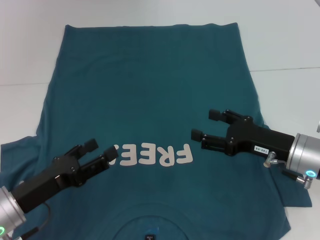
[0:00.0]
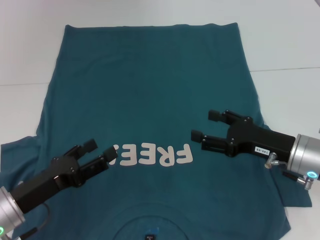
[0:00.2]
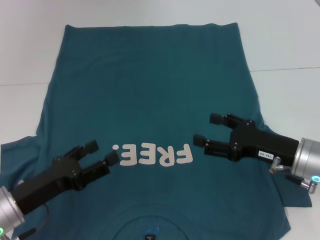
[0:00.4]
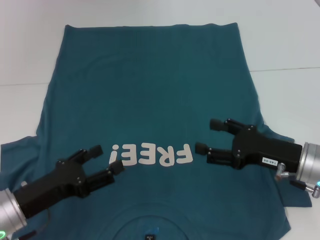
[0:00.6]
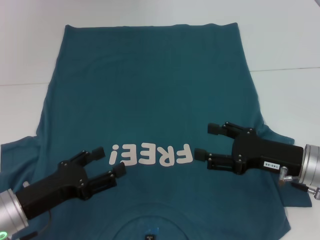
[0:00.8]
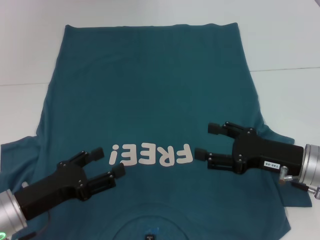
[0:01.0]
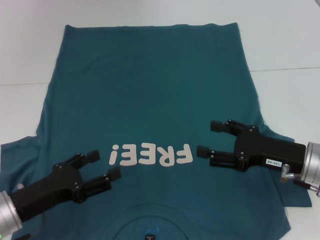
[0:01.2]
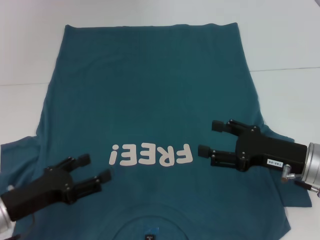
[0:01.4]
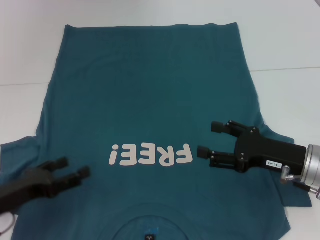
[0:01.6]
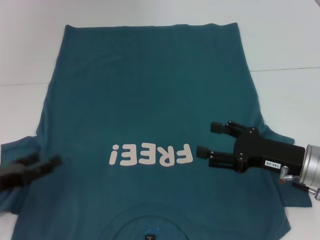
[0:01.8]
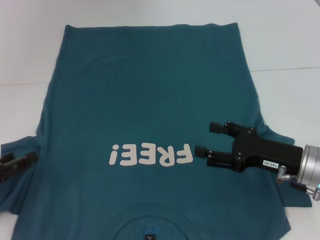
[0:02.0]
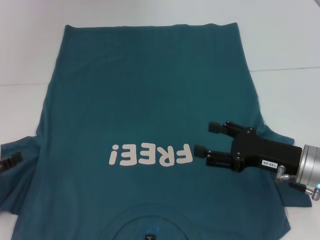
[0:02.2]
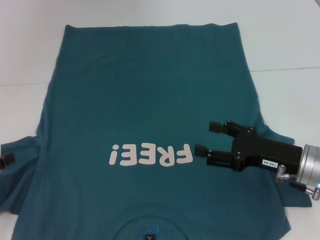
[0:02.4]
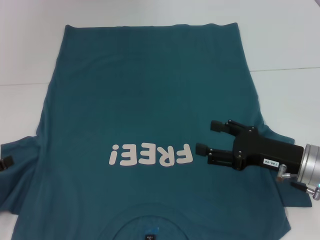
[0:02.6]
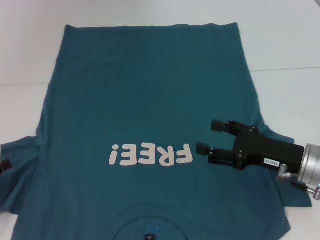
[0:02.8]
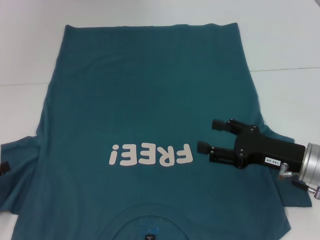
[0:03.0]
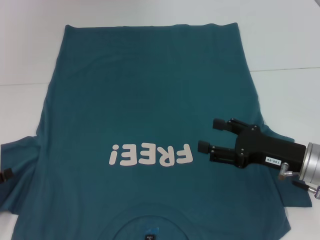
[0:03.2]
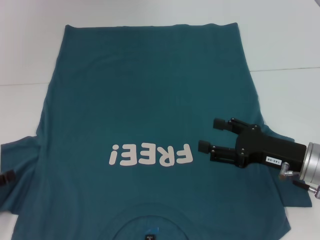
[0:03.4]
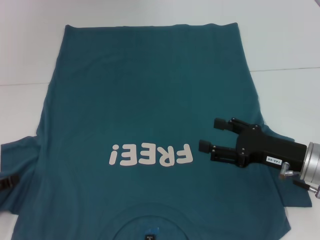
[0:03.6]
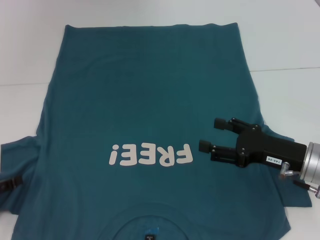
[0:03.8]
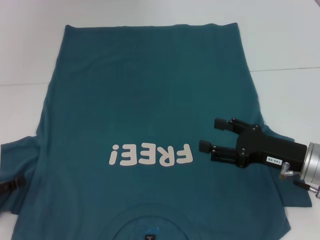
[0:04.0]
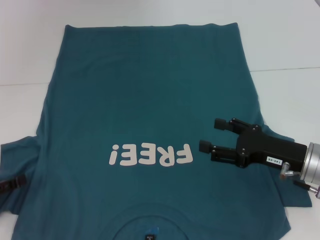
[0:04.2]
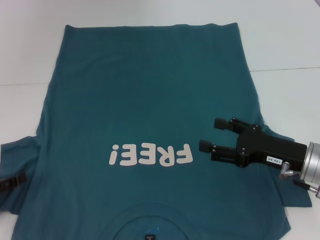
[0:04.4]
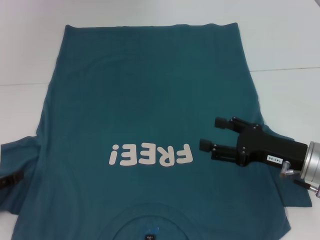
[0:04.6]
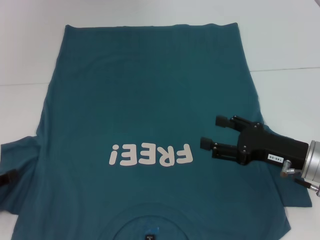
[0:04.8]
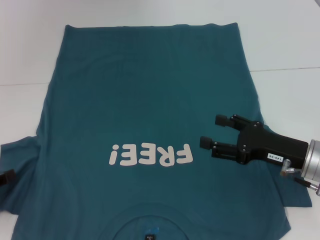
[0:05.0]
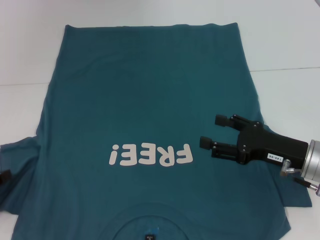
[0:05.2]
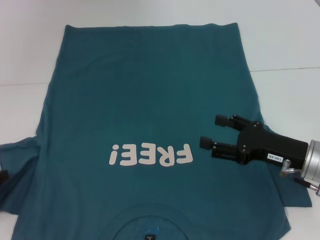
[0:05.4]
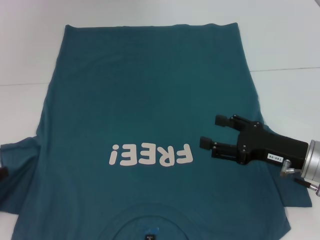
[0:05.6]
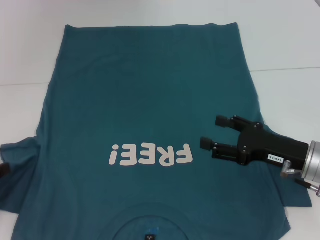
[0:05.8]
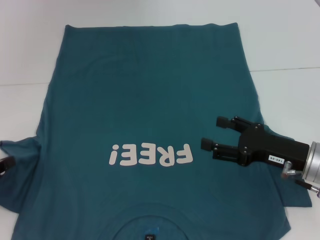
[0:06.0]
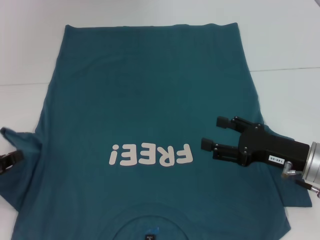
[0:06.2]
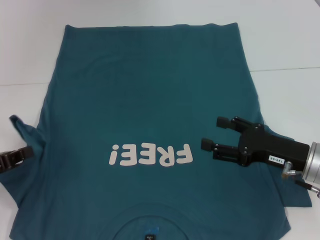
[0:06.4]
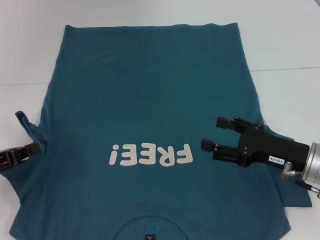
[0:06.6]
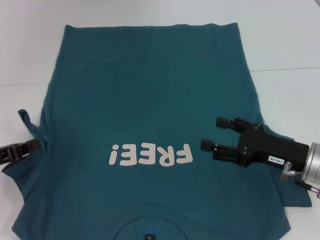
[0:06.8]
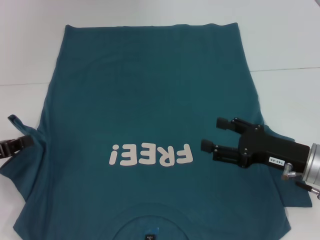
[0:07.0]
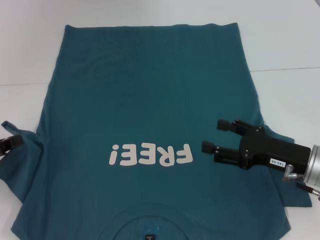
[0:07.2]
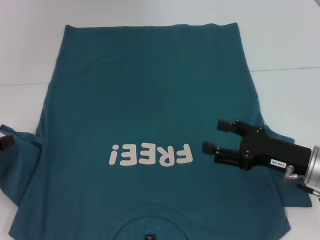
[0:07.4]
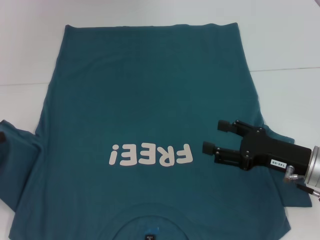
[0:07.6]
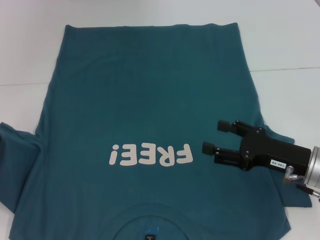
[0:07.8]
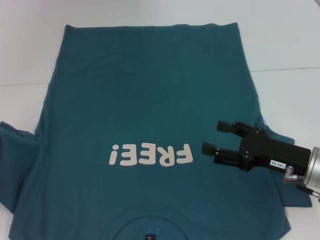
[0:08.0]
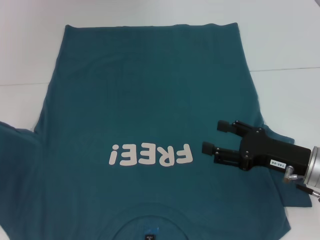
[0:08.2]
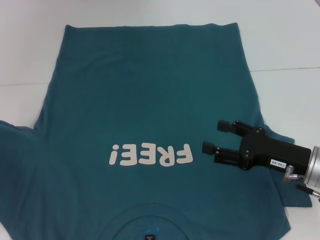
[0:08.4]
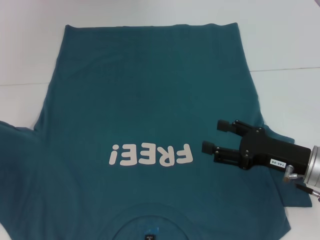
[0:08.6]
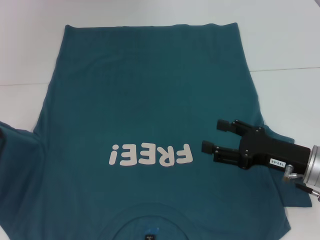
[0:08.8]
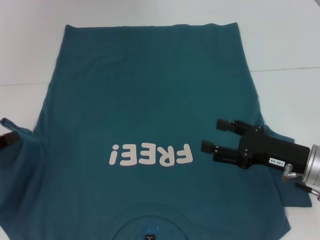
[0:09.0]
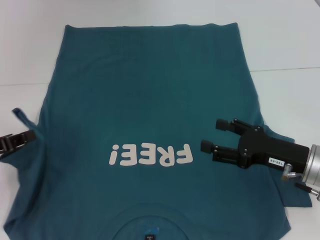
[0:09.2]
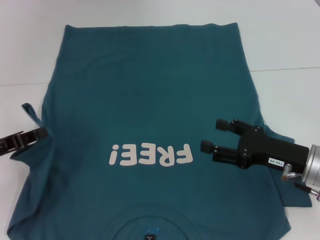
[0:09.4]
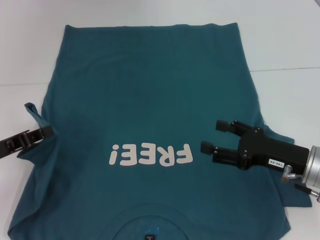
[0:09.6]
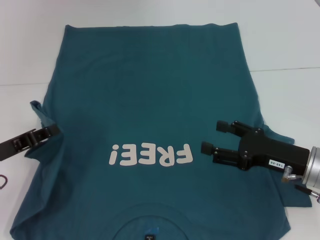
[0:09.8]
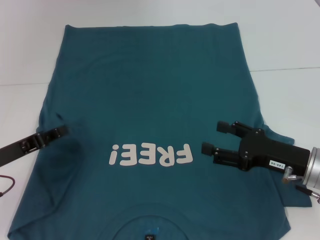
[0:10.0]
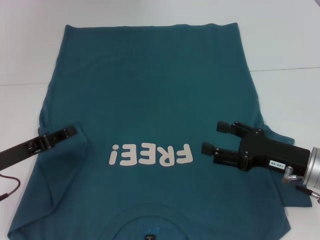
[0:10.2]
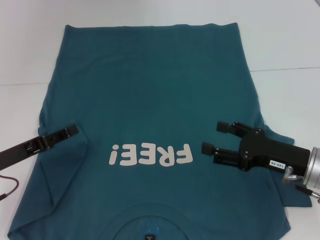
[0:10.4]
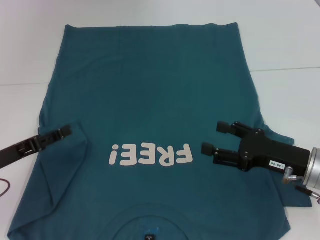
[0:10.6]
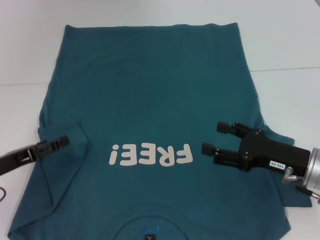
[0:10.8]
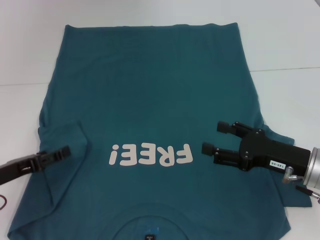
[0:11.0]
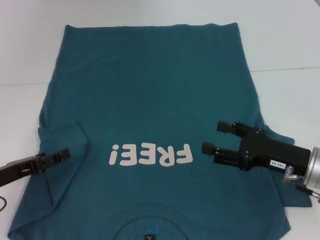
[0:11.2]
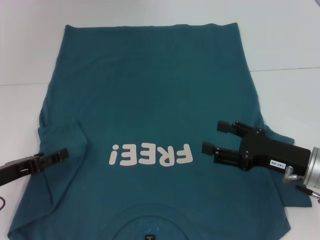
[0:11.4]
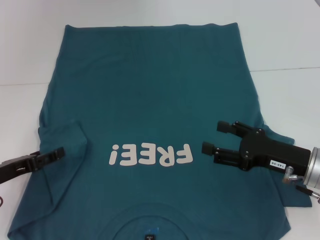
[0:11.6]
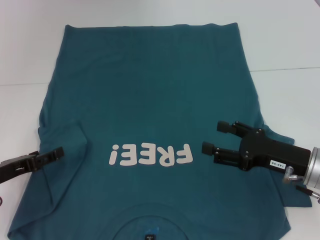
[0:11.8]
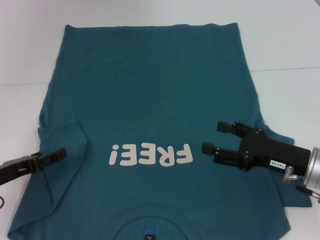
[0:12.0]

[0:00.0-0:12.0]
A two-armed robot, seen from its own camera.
0:00.0 to 0:01.6: The grippers stay close to where they were, moving slightly.
0:01.6 to 0:03.0: The left gripper shifts roughly 10 cm to the left.
0:03.0 to 0:04.4: The grippers stay close to where they were, moving slightly.
0:04.4 to 0:06.0: The left gripper closes its fingers.
0:06.0 to 0:07.6: There are only small adjustments of the grippers.
0:07.6 to 0:09.0: The grippers move only a little.
0:09.0 to 0:10.4: The left gripper is displaced to the right by roughly 5 cm.
0:10.4 to 0:12.0: The left gripper opens.

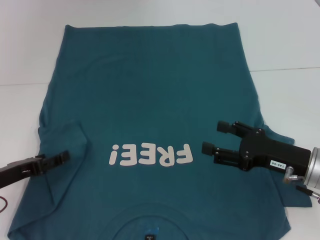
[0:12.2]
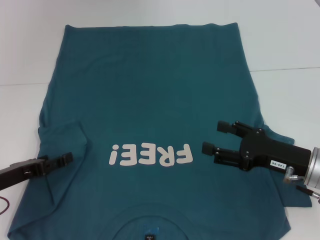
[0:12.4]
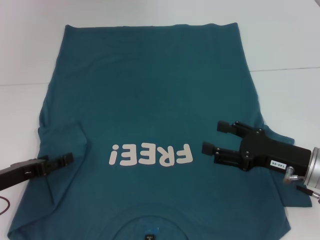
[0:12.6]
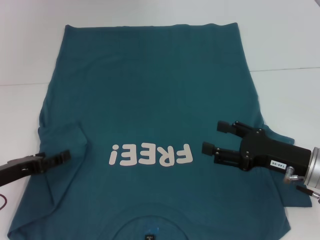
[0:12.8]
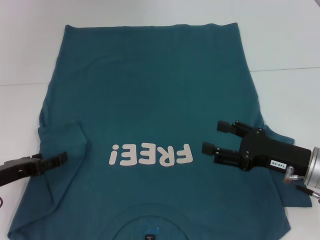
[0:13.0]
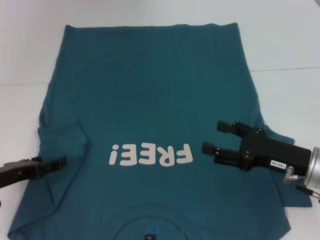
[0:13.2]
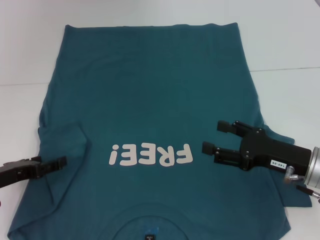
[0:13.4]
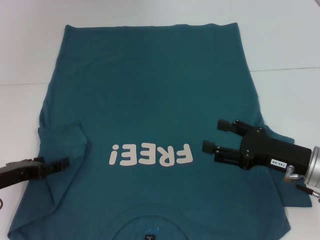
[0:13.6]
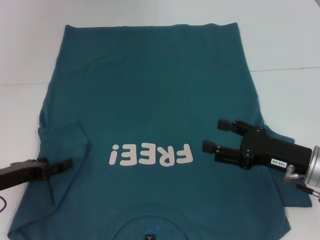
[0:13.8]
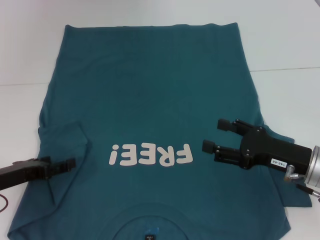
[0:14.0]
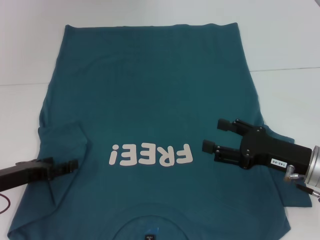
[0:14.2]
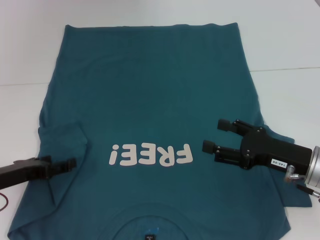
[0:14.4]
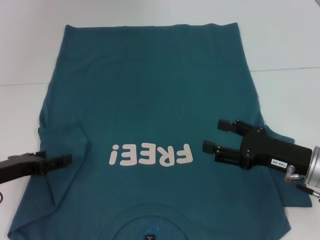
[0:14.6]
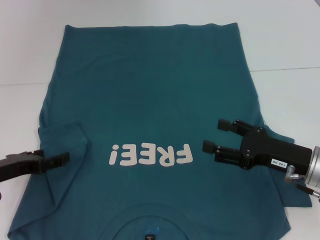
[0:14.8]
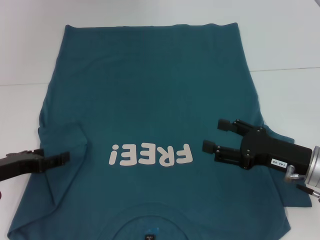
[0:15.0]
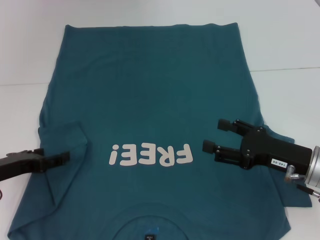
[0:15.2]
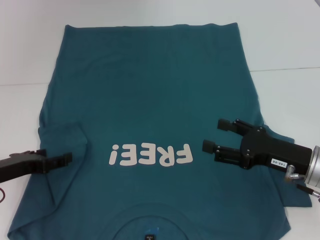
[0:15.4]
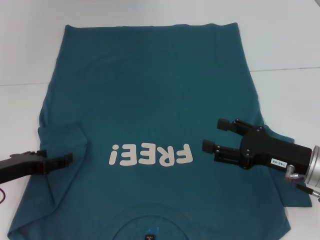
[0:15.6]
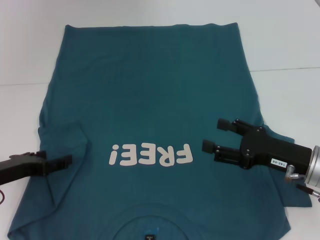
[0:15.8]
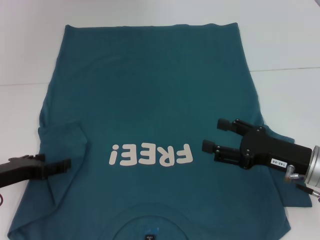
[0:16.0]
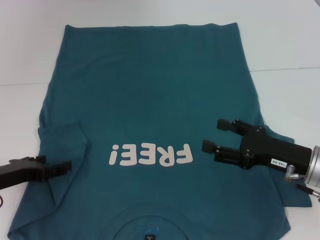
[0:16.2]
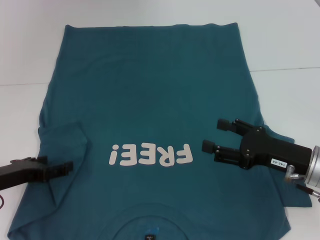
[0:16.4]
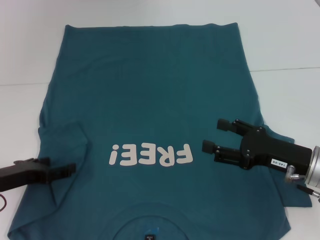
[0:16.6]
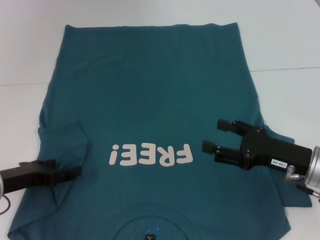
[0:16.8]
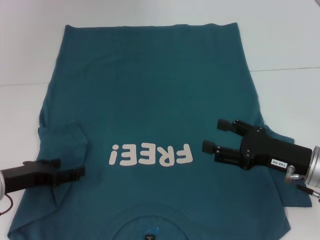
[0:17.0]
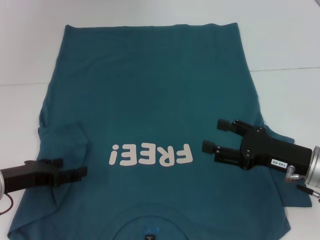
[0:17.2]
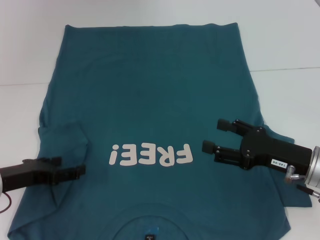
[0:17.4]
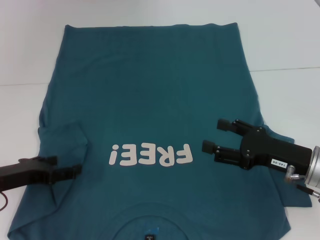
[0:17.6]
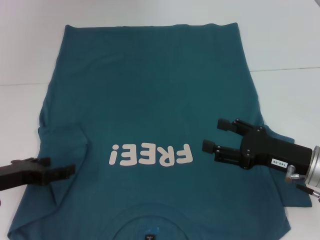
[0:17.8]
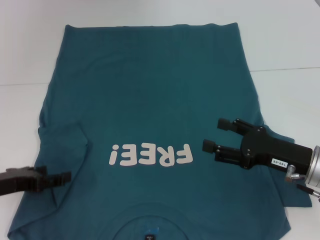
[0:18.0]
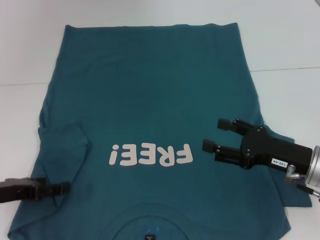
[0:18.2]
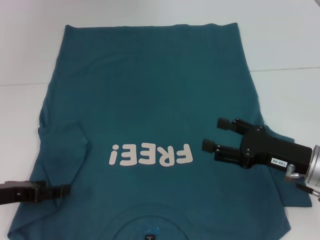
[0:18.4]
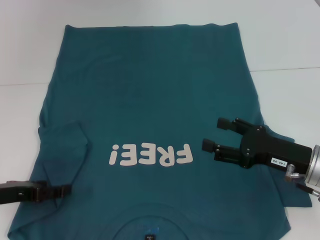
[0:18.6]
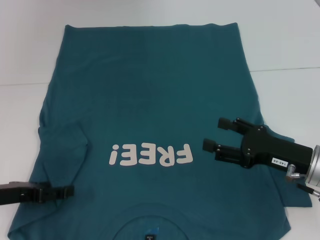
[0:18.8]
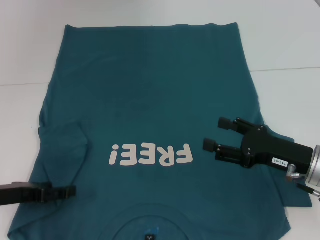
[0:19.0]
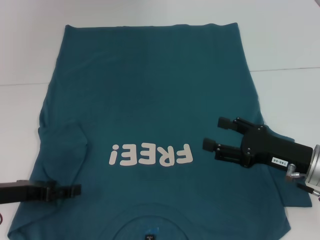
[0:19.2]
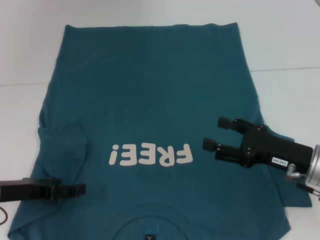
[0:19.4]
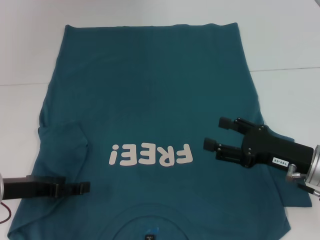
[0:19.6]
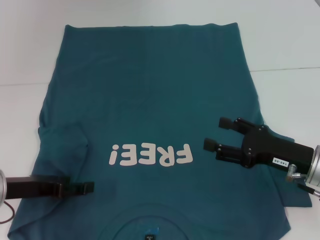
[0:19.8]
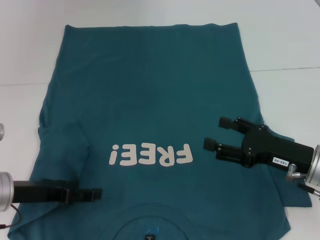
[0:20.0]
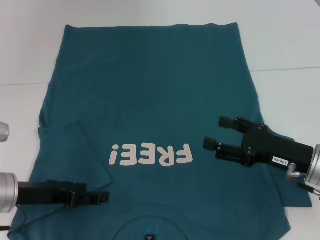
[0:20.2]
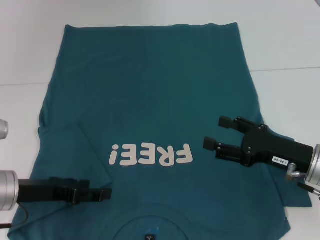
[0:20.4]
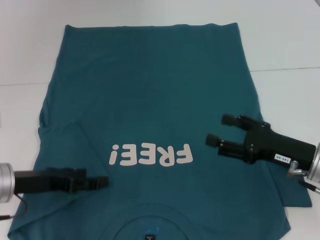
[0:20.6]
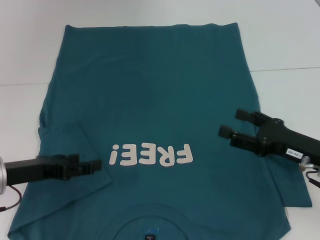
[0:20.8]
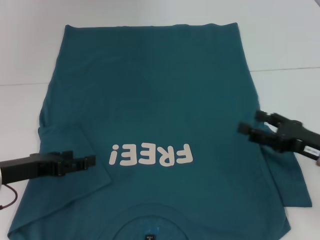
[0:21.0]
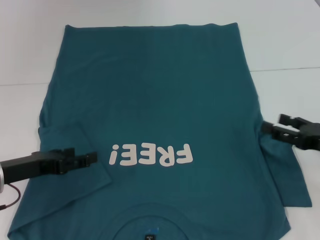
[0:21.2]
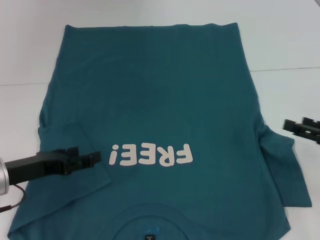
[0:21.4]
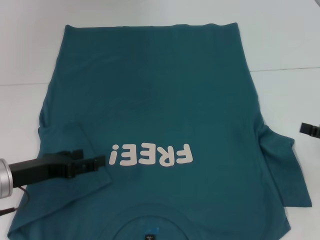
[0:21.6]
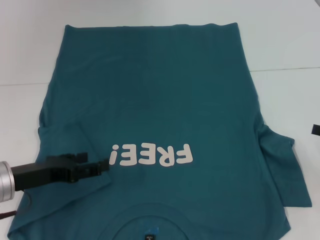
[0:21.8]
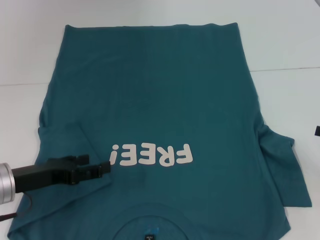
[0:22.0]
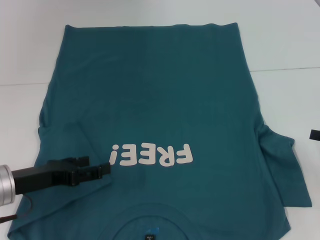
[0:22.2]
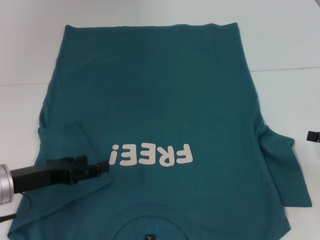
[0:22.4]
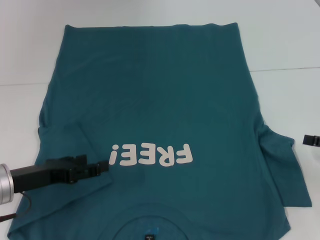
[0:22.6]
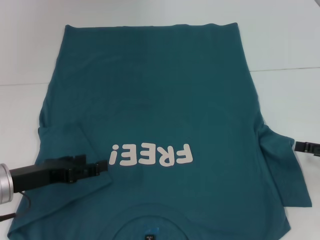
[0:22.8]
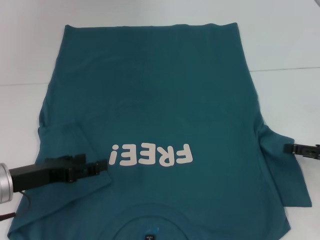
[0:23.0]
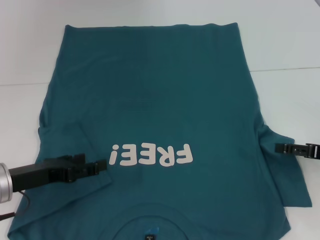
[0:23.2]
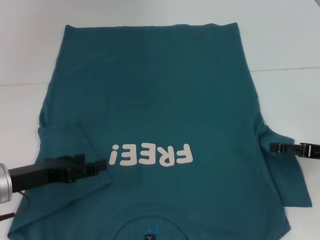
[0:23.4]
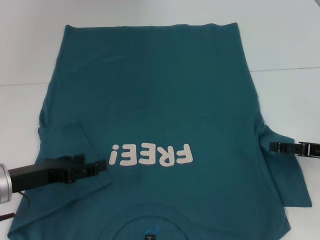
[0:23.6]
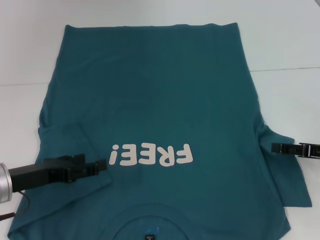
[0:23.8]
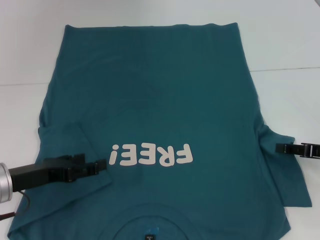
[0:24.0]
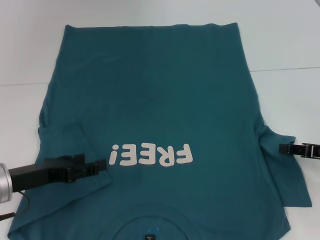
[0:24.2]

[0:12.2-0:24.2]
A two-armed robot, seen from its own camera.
Step, 0:12.2 to 0:20.2: Fold the bottom left sleeve with your left hand.
0:12.2 to 0:15.2: There are only small adjustments of the grippers.
0:15.2 to 0:16.6: Neither gripper changes place.
0:16.6 to 0:19.8: The grippers make only small movements.
0:19.8 to 0:21.2: The right gripper is displaced to the right by roughly 10 cm.
0:21.2 to 0:22.6: The right gripper goes some 5 cm to the right.
0:22.6 to 0:24.2: The right gripper shifts by some 5 cm, and closes up.
